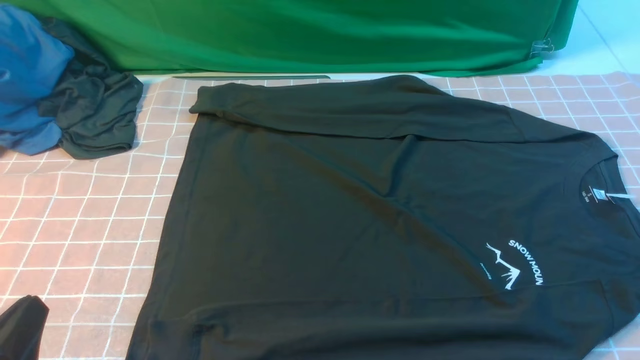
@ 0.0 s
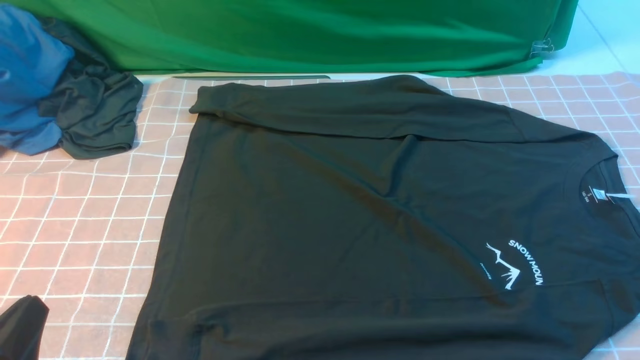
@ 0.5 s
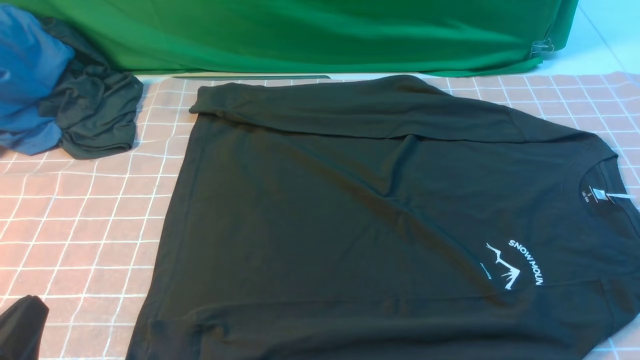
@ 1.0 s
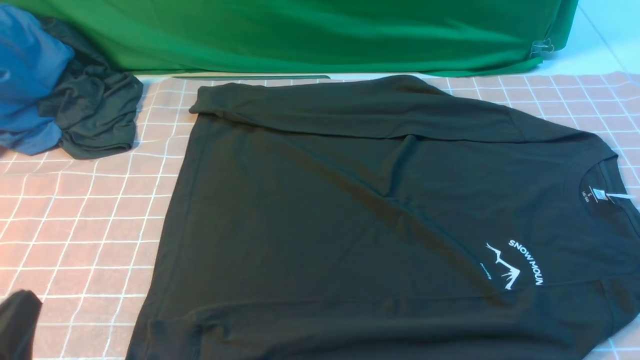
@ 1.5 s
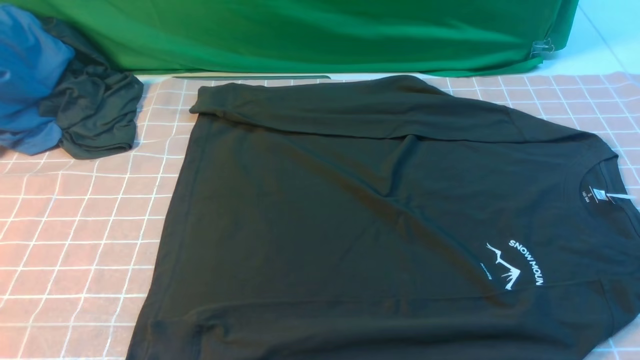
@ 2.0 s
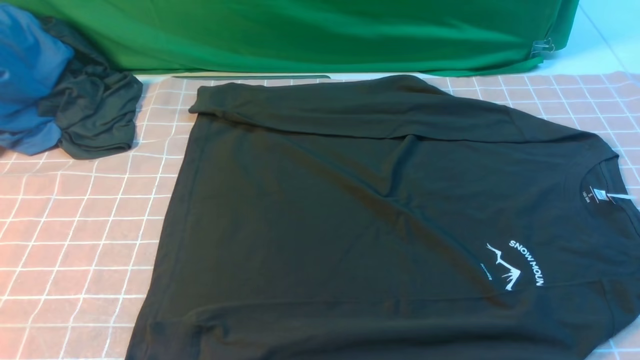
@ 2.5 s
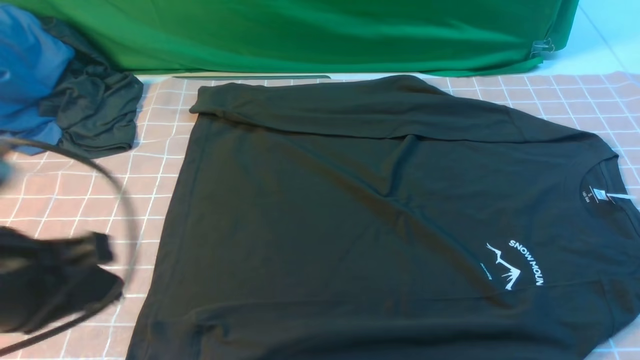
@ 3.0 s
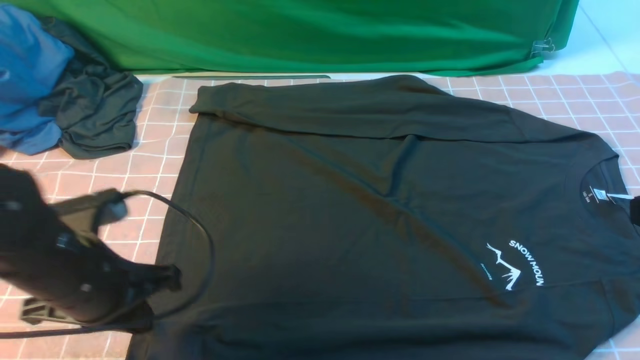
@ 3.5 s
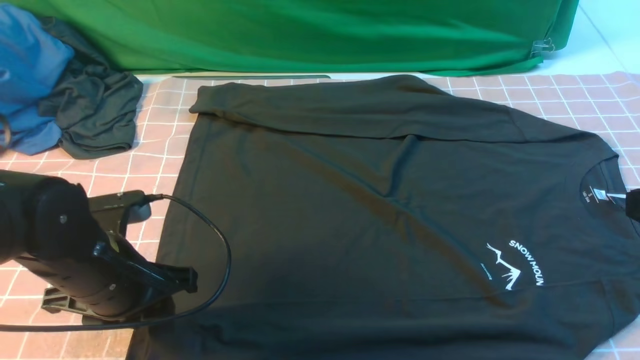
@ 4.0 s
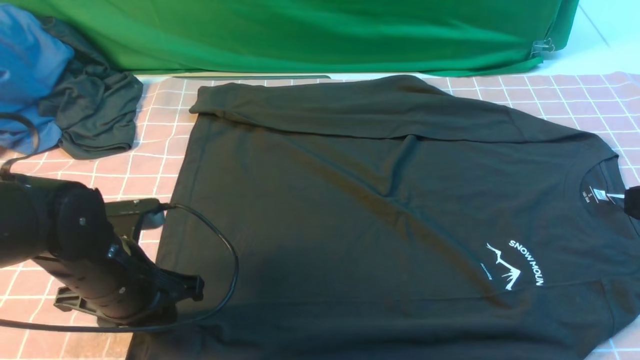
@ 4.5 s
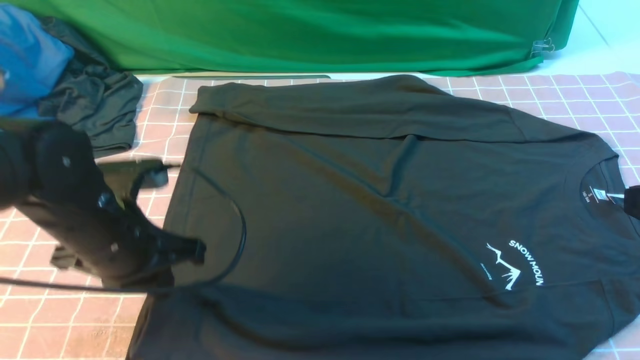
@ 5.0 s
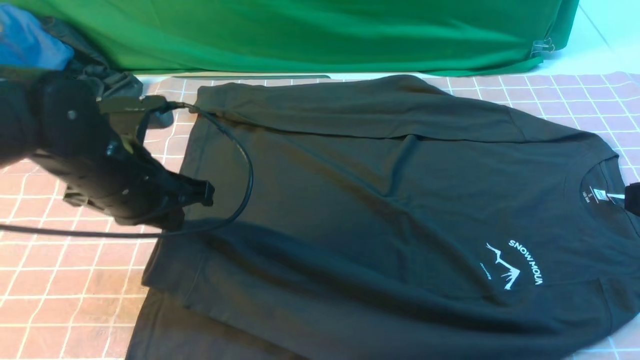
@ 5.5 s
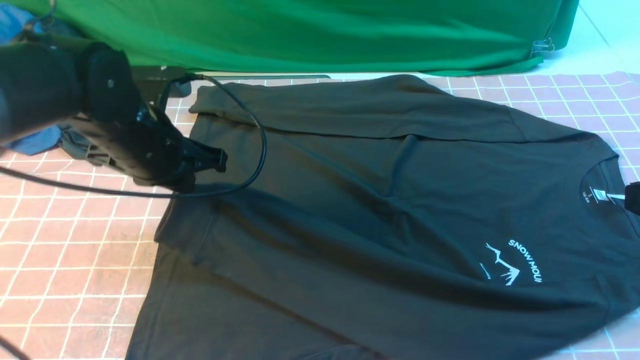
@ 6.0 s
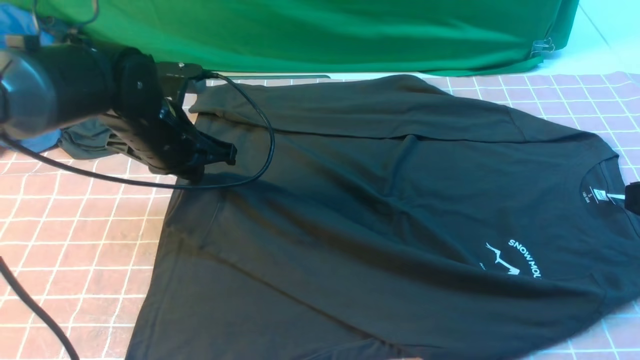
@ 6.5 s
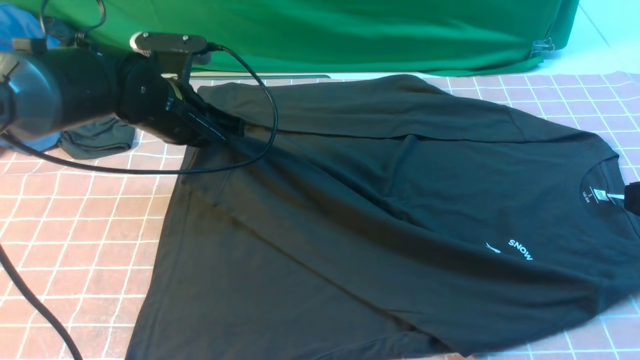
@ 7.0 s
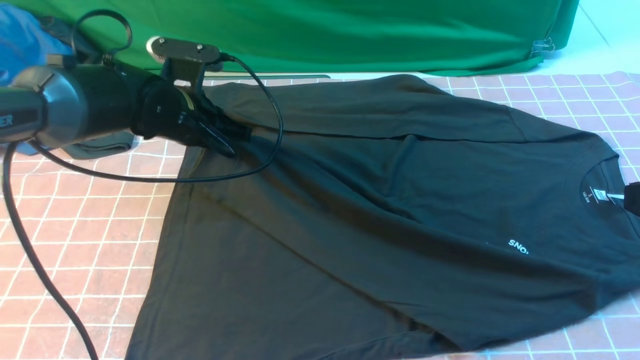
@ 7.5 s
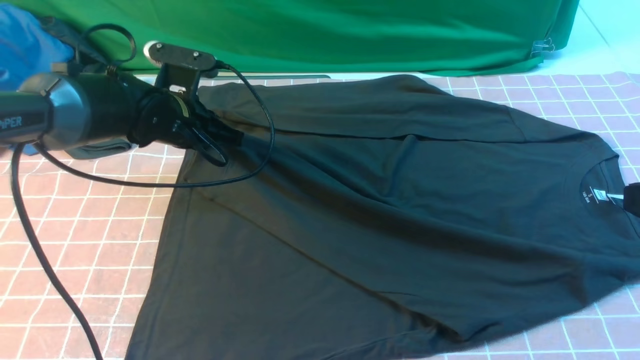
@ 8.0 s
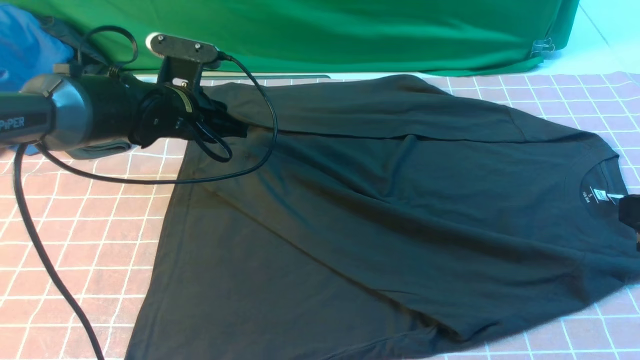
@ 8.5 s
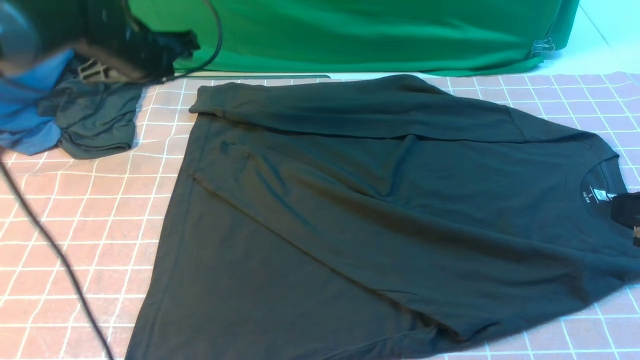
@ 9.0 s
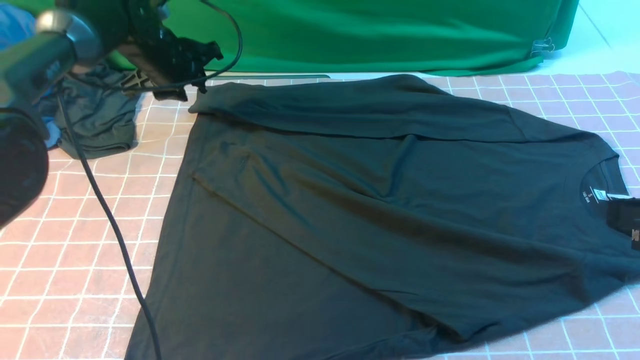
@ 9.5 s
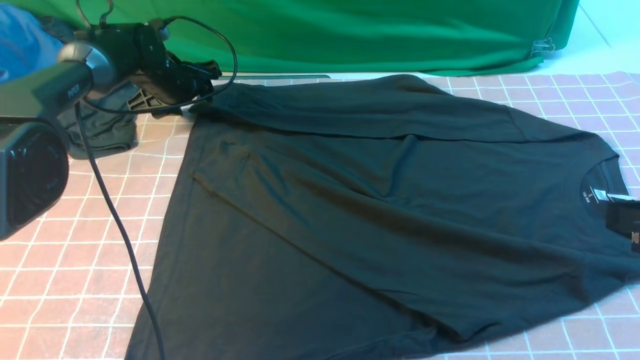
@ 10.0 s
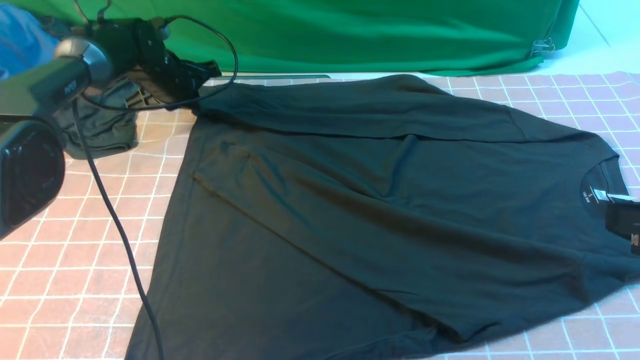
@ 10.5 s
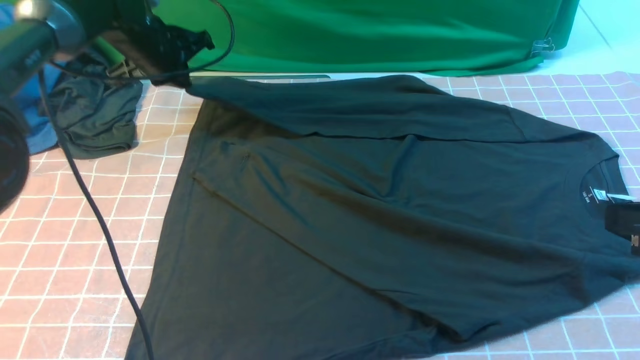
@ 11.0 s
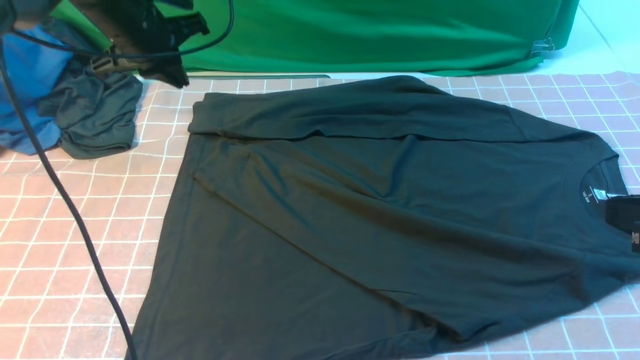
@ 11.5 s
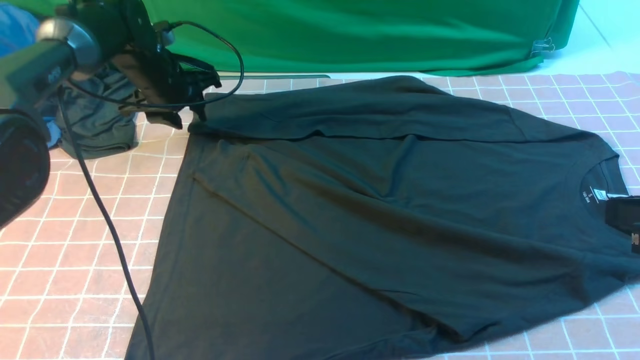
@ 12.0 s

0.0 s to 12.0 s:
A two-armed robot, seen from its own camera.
Step, 0.0 to 4.5 s: use the left arm to clamp the cuff closest to it.
Step, 5.5 to 8.5 s: use the left arm to drag and place the cuff at the centered position on the left edge of the fabric.
2.0 to 4.0 s: The right gripper travels upward and forward by some 15 cm, and closes up, while the left gripper shifts approximately 15 cm forward, and opens its fingers.
4.0 to 6.0 s: The left gripper moves forward and upward, some 15 cm, and closes.
6.0 to 8.0 s: The left gripper heads forward, covering about 10 cm.
8.0 to 10.0 s: The left gripper moves forward and to the left, about 15 cm, and opens up.
10.0 to 12.0 s: The left gripper moves some 10 cm upward and comes back, and closes, then reopens.

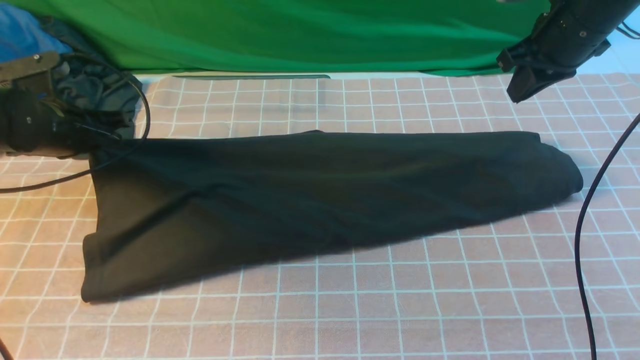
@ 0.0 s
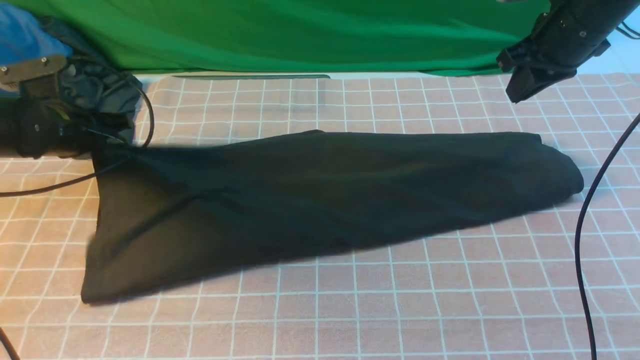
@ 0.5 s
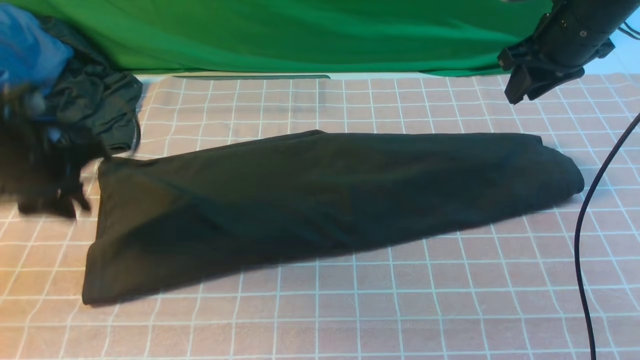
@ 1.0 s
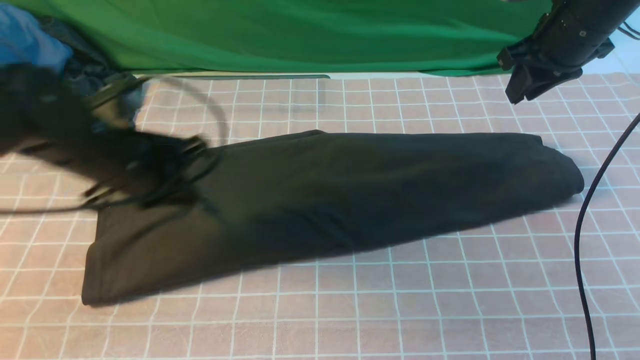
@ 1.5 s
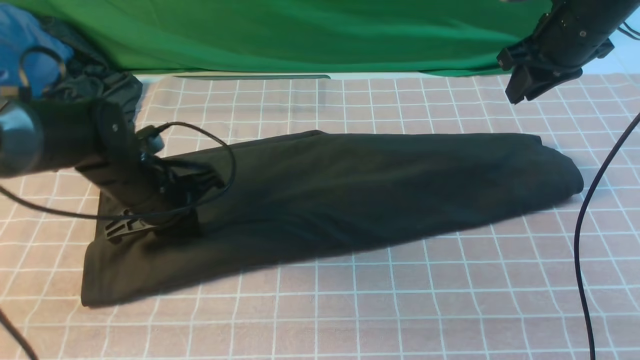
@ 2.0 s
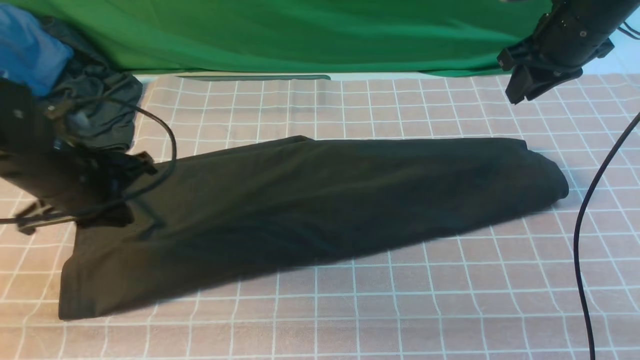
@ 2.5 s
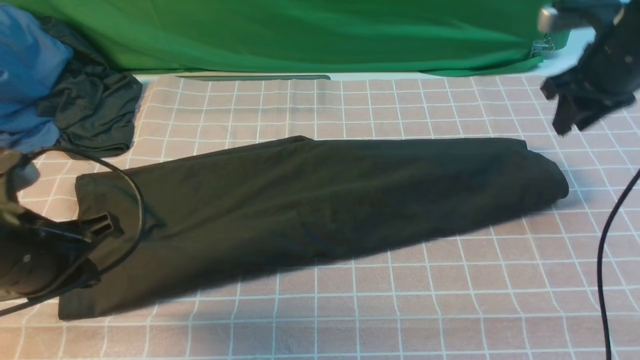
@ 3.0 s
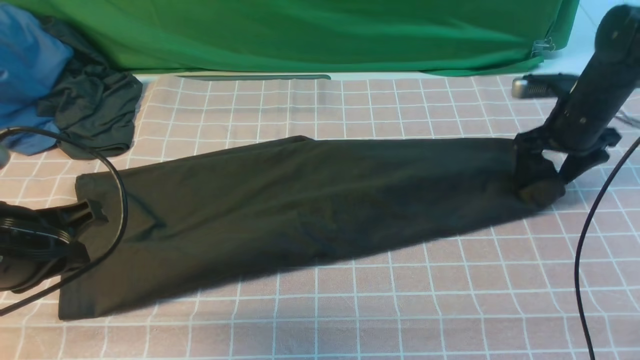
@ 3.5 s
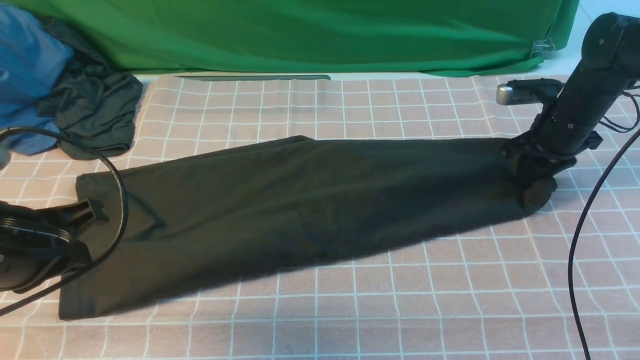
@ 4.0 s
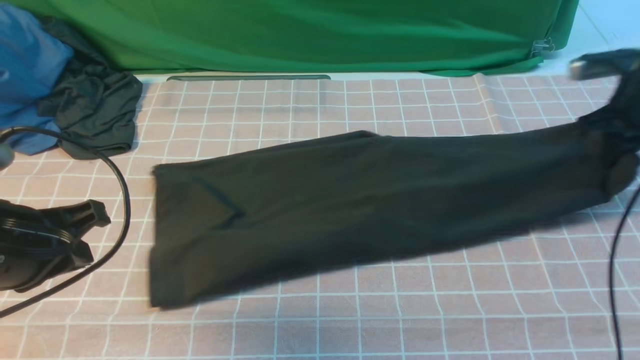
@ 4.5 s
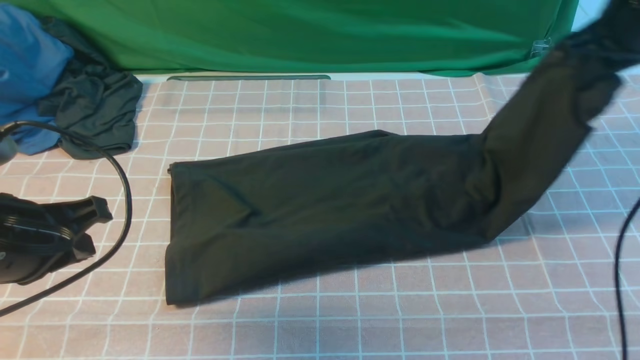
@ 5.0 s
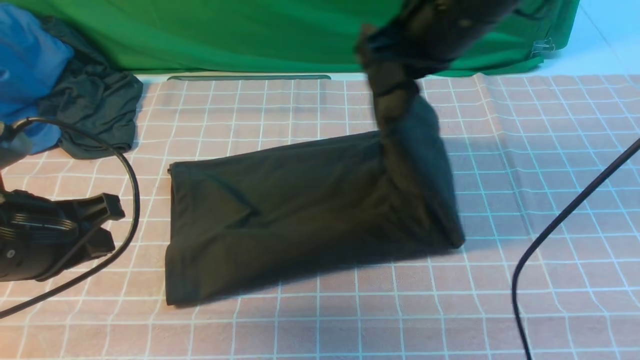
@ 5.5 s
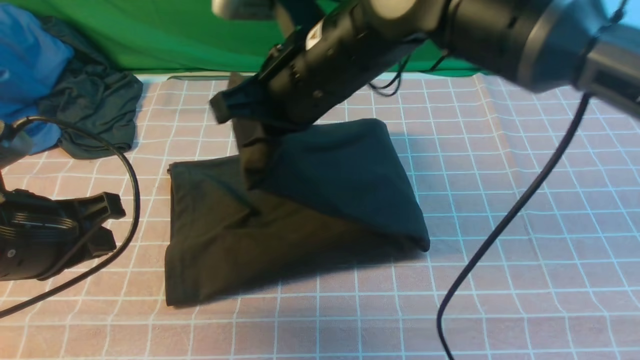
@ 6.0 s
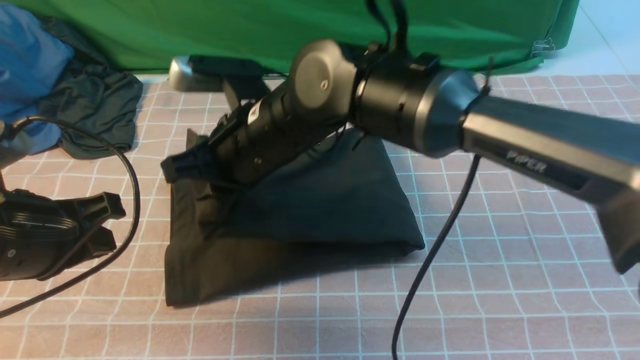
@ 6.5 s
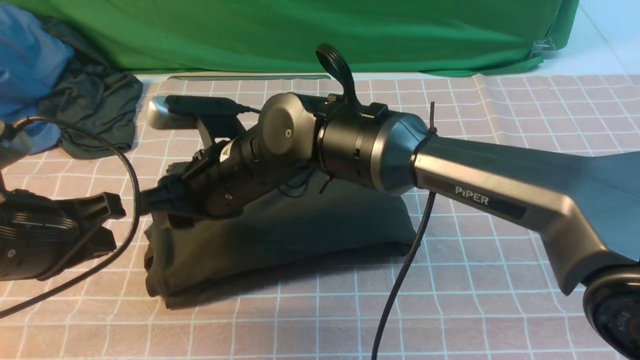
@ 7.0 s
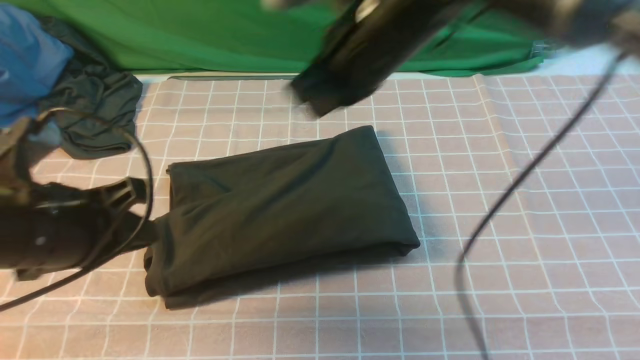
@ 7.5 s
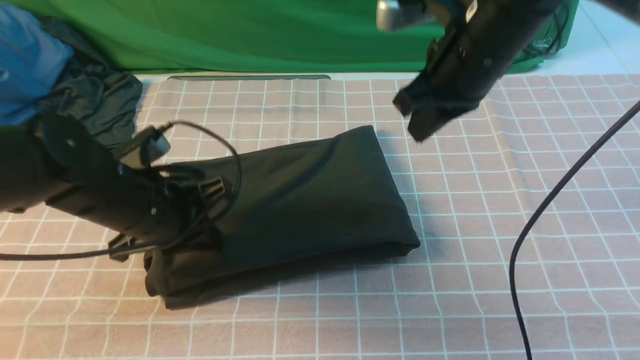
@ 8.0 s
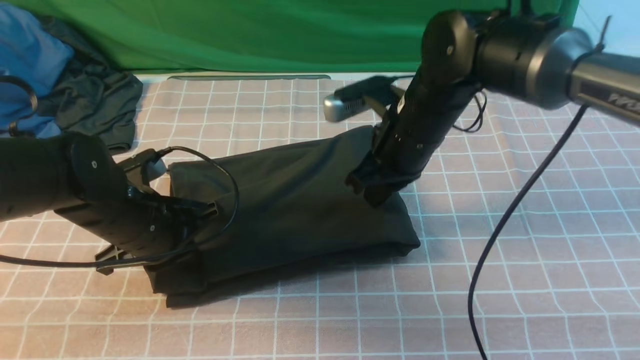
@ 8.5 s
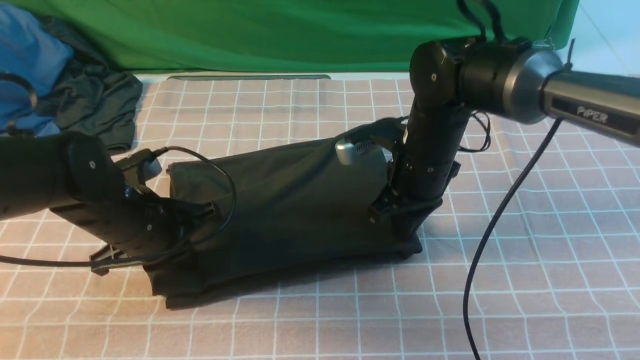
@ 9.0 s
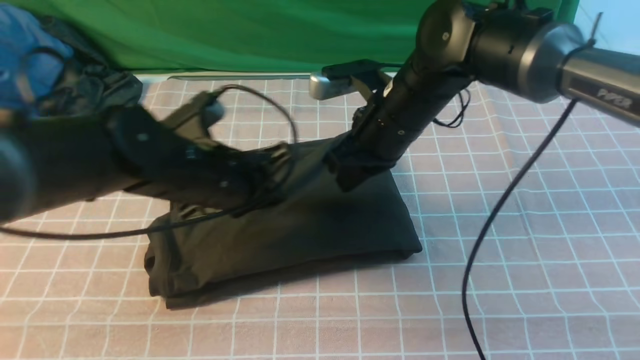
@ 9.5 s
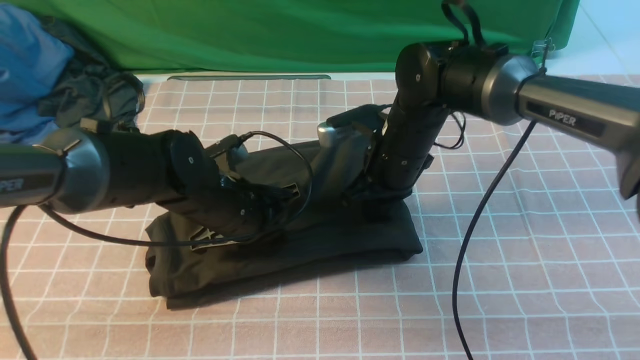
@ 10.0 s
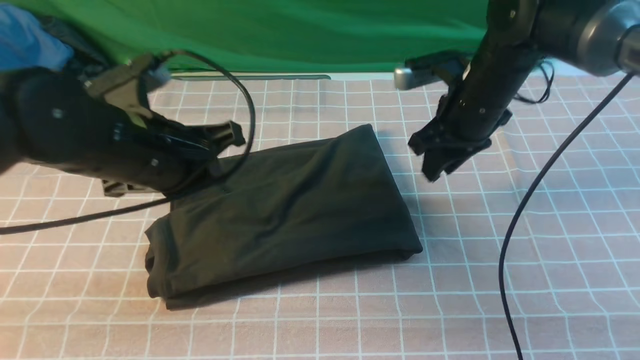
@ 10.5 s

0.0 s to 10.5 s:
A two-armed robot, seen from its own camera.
Step, 0.0 to 4.0 s: use the right arm to clamp the right edge of the fabric.
Step, 5.0 to 7.0 s: use the right arm to drag the right edge of the fabric to the left and folds it over the left edge.
0.0 to 2.0 s: The left gripper heads to the right, covering approximately 10 cm, and opens and closes again.
2.0 to 4.0 s: The right gripper heads downward, covering roughly 15 cm, and opens, then closes once more, while the left gripper moves backward and upward, roughly 20 cm.
4.0 to 6.5 s: The right gripper heads to the left, covering roughly 35 cm.
6.5 to 8.5 s: The left gripper is displaced forward and downward by approximately 15 cm. The right gripper goes roughly 15 cm to the right, and opens and closes again.
8.5 to 10.5 s: The right gripper is displaced to the right by roughly 5 cm, and opens its fingers, while the left gripper heads upward, covering approximately 10 cm.
